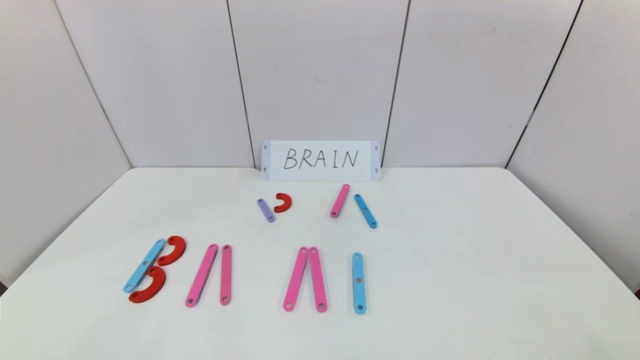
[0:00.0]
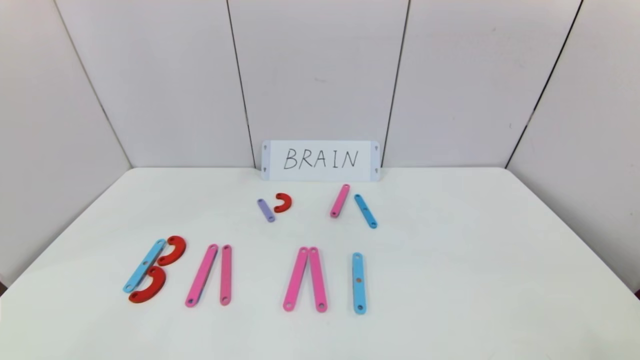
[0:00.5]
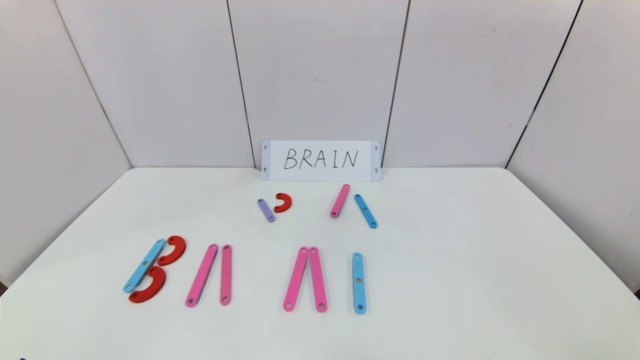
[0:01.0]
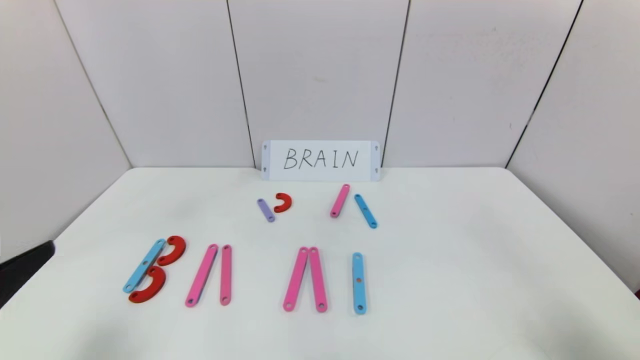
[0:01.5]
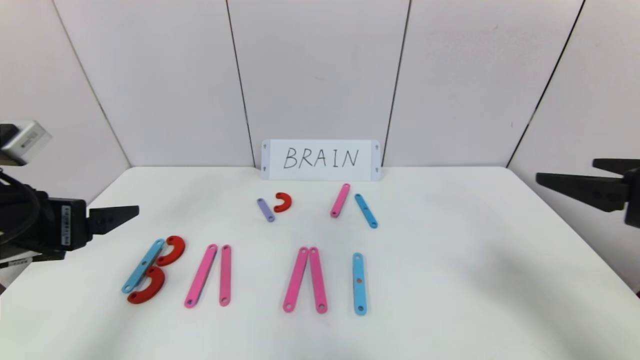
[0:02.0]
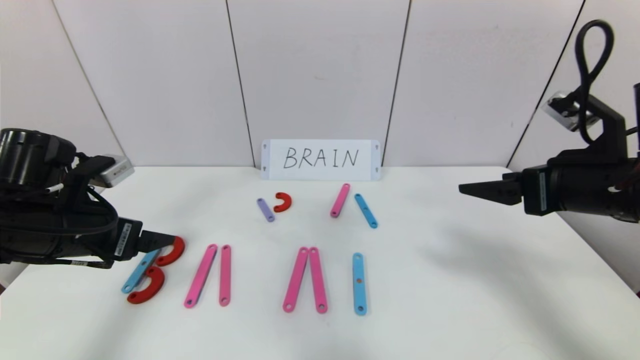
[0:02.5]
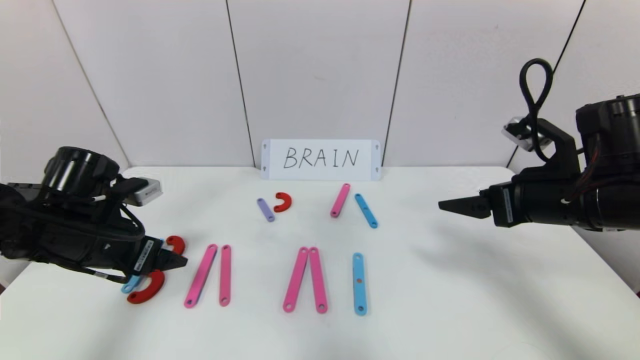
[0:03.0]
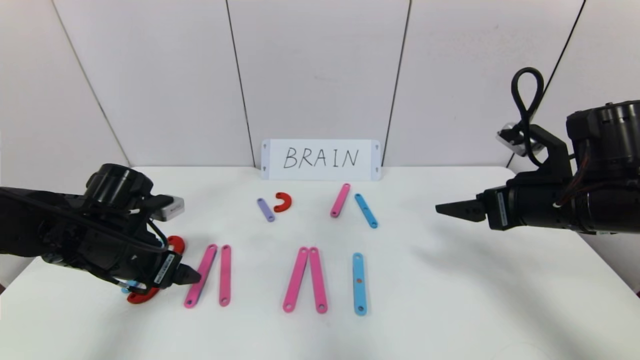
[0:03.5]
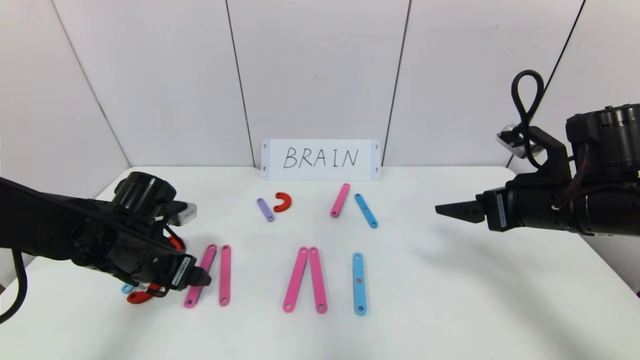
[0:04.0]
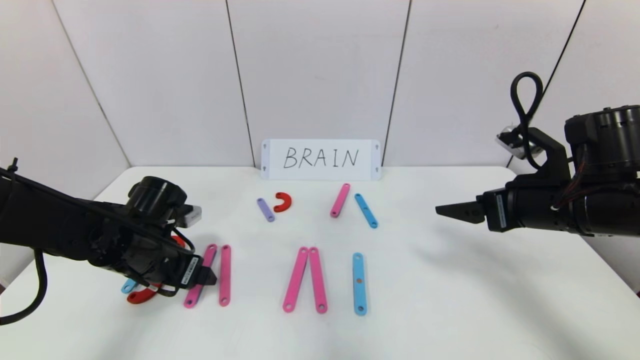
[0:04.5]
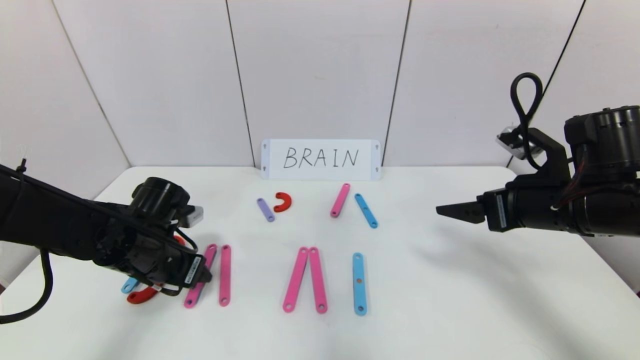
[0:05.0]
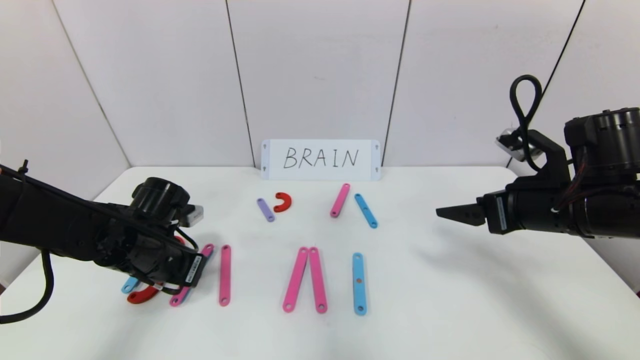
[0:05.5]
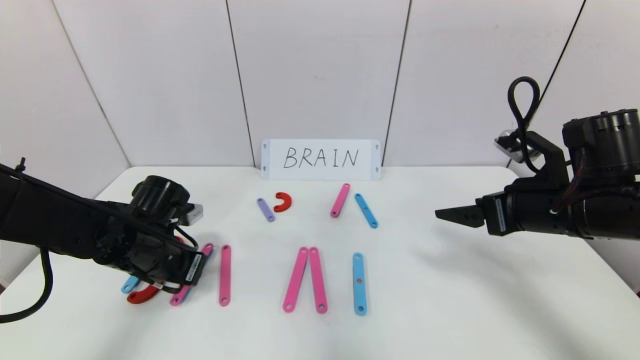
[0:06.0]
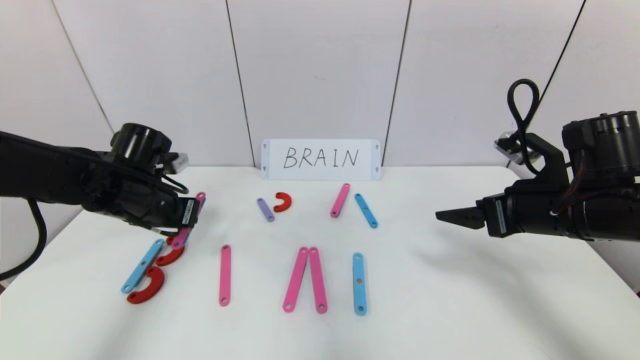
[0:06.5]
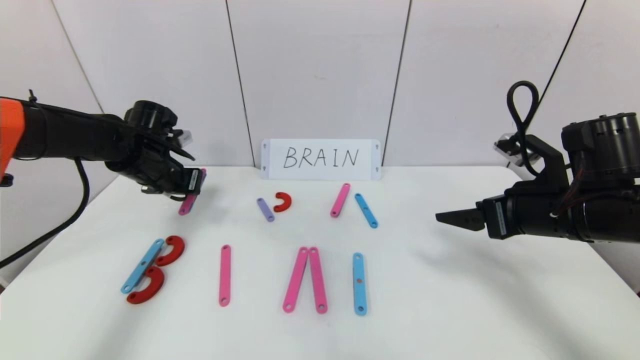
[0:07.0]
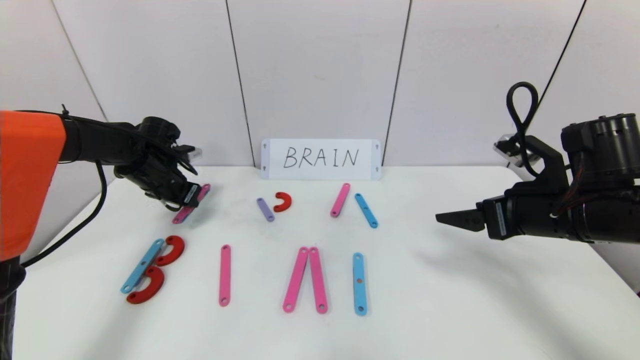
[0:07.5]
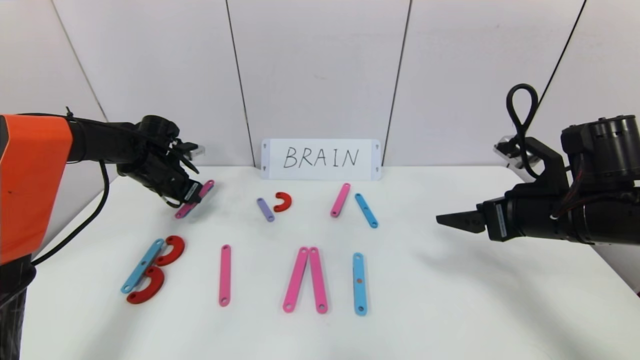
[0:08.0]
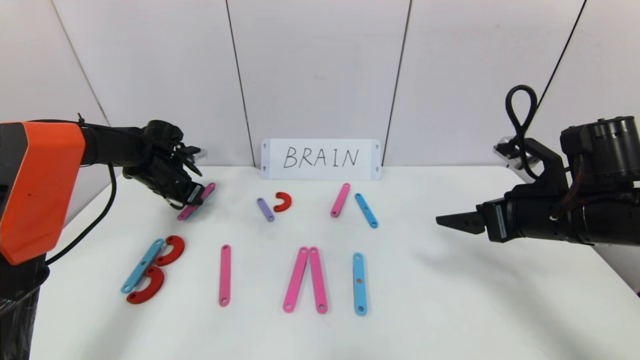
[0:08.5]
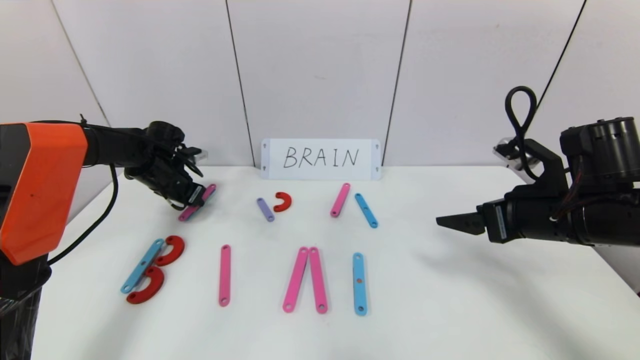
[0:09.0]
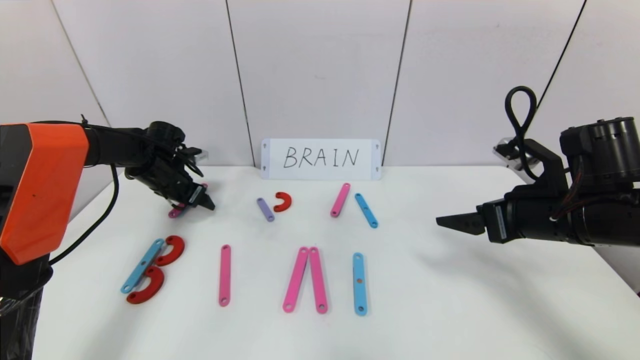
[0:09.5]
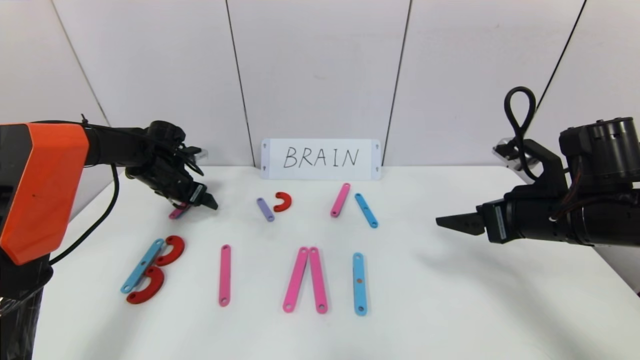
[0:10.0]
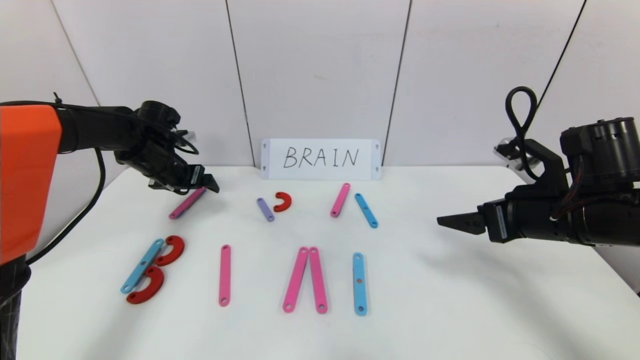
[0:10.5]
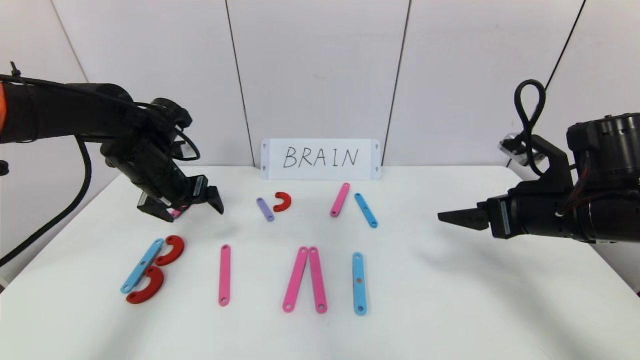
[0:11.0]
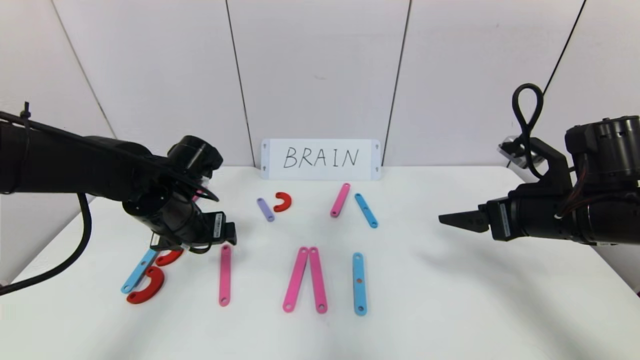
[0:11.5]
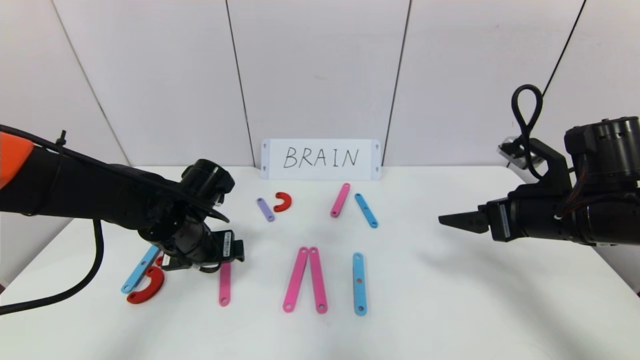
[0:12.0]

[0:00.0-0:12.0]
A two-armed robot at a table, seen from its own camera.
Task of the whole recording: rearrange the word baai as brain.
0:00.0 to 0:02.0: The left gripper moves forward and upward, roughly 25 cm, while the right gripper travels upward and forward by some 25 cm.
0:02.0 to 0:04.0: The right gripper shifts some 10 cm forward and downward. The left gripper shifts about 15 cm downward and forward.
0:04.0 to 0:06.0: The left gripper closes.
0:06.0 to 0:08.0: The left gripper heads forward and to the left, covering about 20 cm.
0:08.0 to 0:10.0: The left gripper opens its fingers.
0:10.0 to 0:12.0: The left gripper heads backward and to the right, covering some 20 cm.

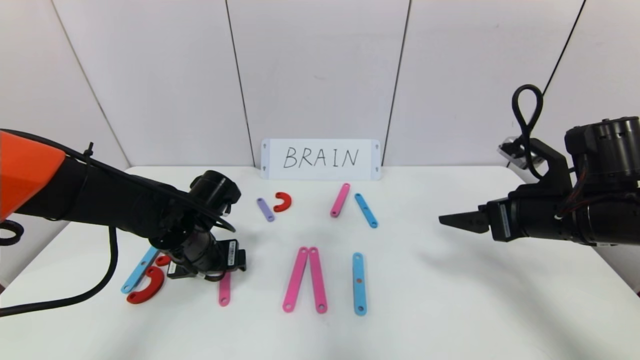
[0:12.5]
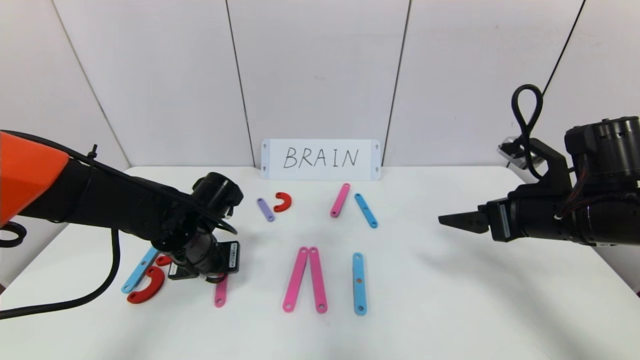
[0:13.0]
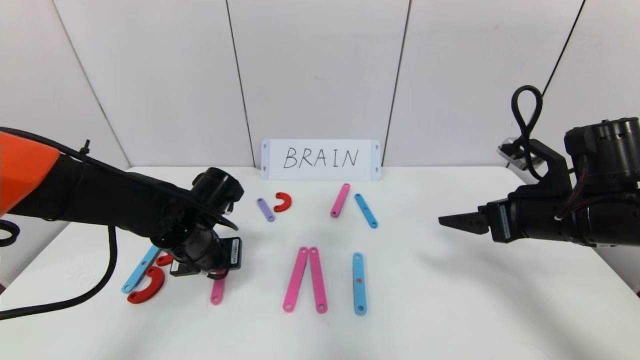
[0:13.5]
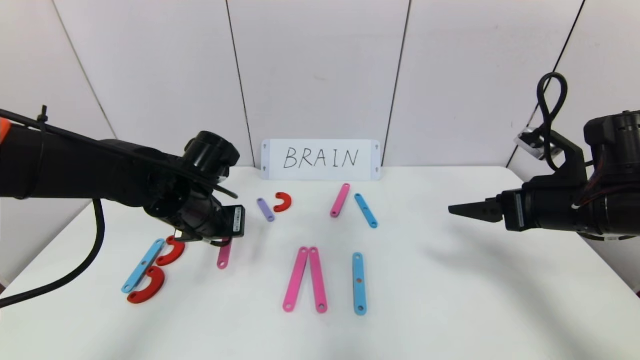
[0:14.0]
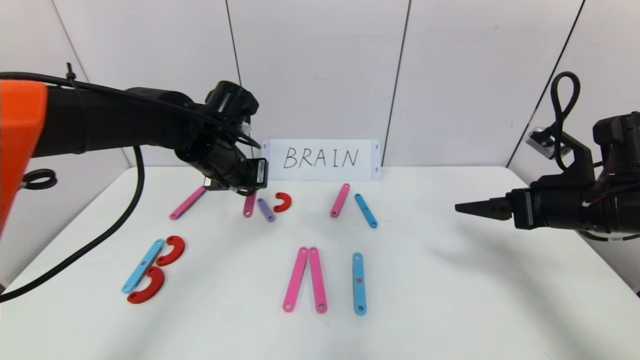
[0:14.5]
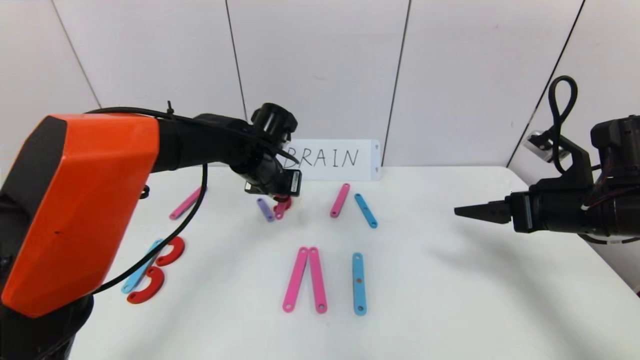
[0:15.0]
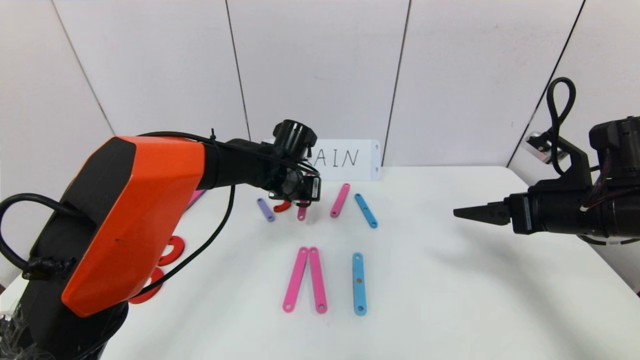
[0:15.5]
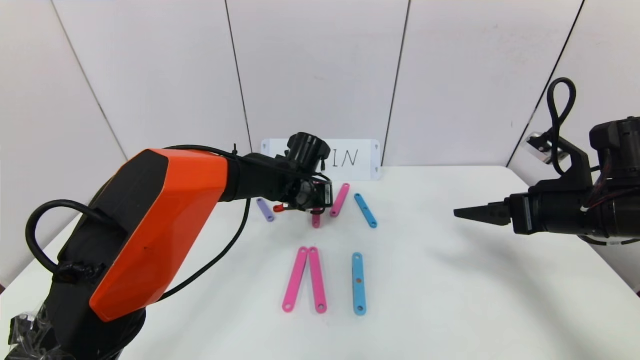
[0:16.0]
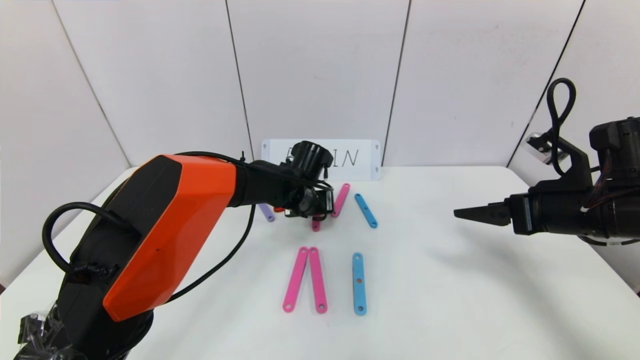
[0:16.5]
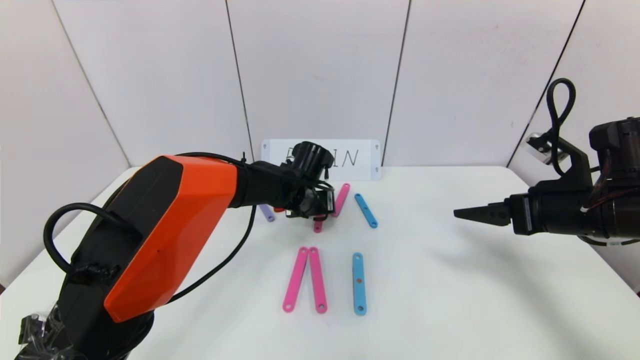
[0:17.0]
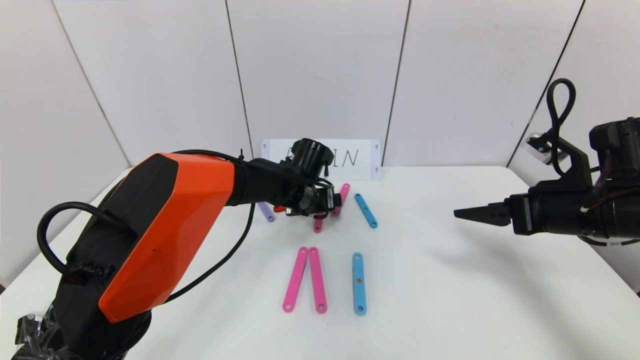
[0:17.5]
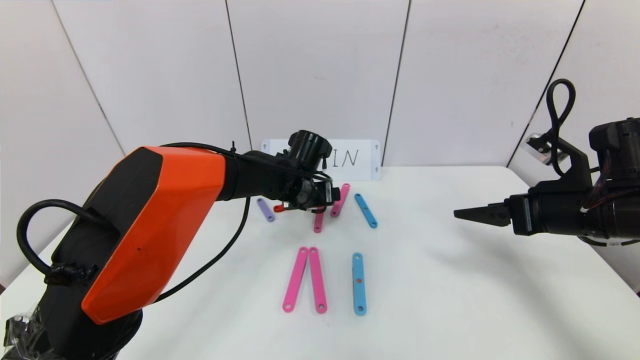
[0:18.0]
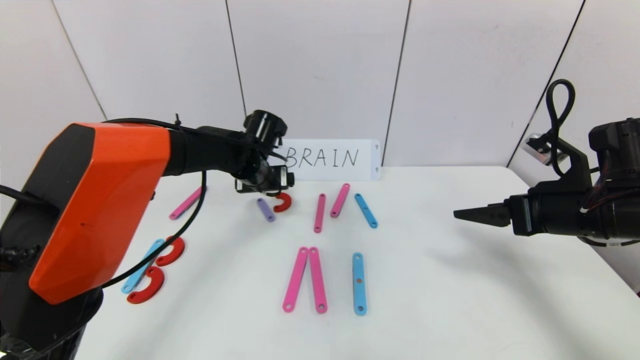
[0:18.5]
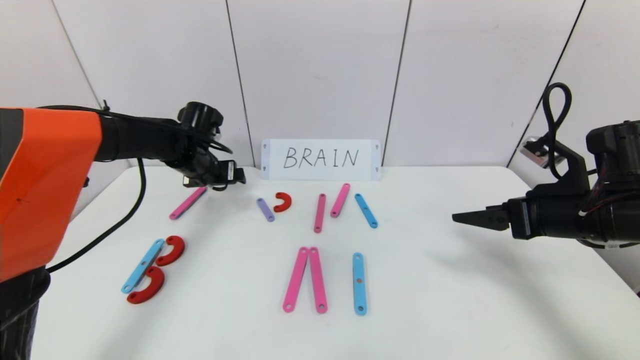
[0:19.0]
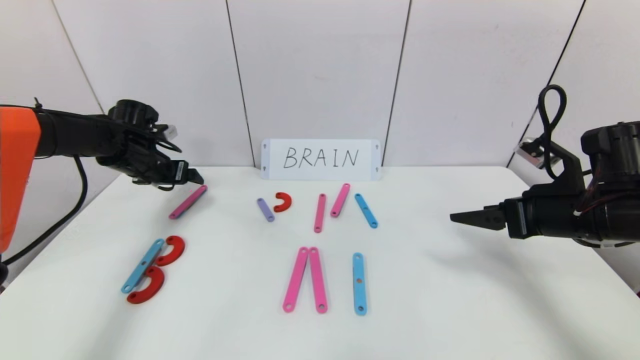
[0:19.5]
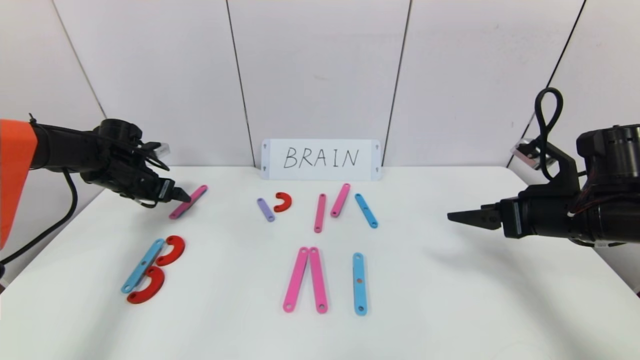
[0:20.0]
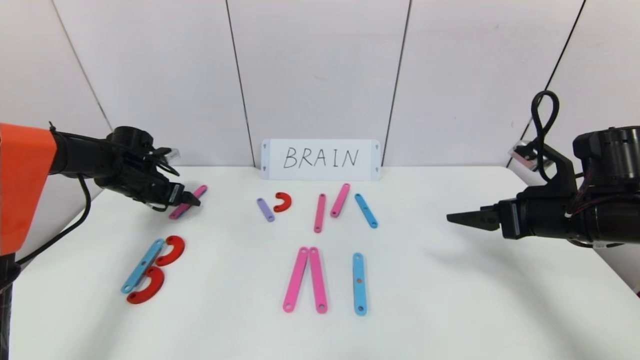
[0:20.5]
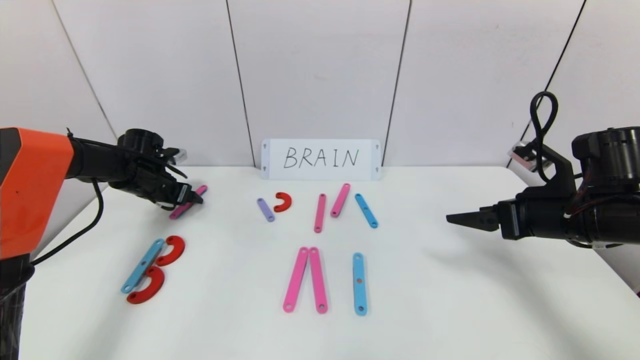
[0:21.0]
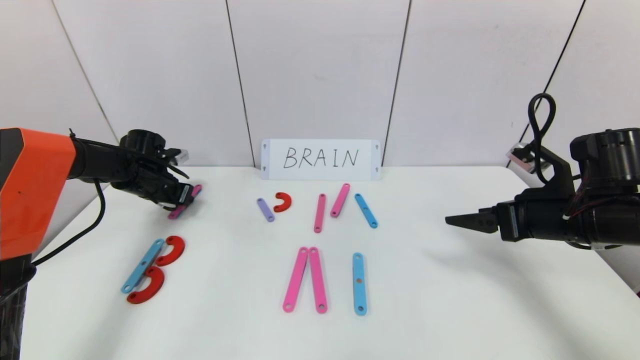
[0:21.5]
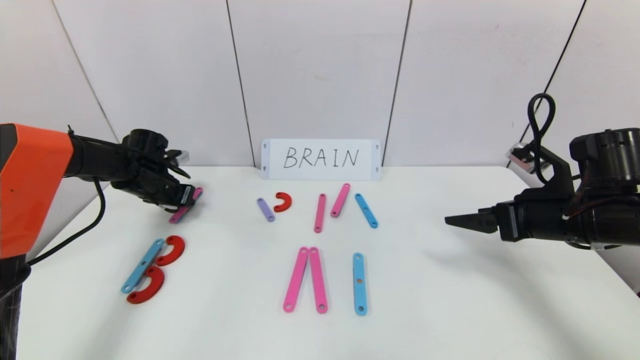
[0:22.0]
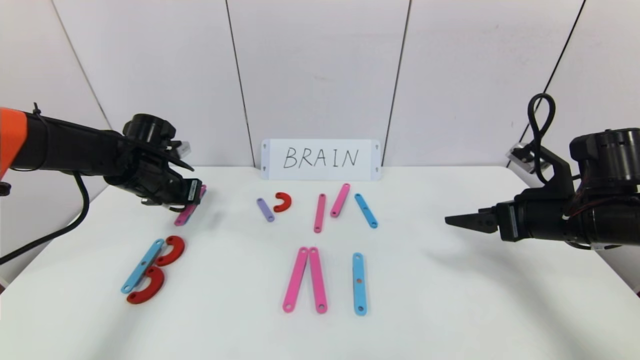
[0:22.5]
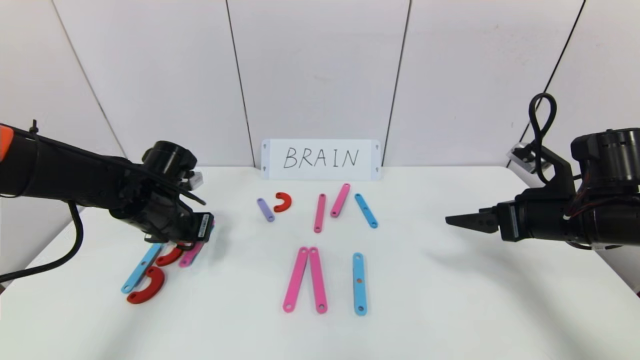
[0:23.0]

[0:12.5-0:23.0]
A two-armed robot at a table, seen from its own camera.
Task of the whole recording: rearrange the word baai as brain.
Step, 0:12.5 to 0:17.5: Disassemble the second character A.
0:12.5 to 0:14.5: The left gripper is displaced upward and forward by approximately 10 cm, and closes up.
0:14.5 to 0:16.5: The left gripper is displaced to the right, downward and forward by about 15 cm.
0:16.5 to 0:19.0: The left gripper goes roughly 20 cm to the left, and opens up.
0:19.0 to 0:21.0: The left gripper moves to the left and downward, some 15 cm.
0:21.0 to 0:23.0: The left gripper moves backward and to the right, about 20 cm, and closes up.
